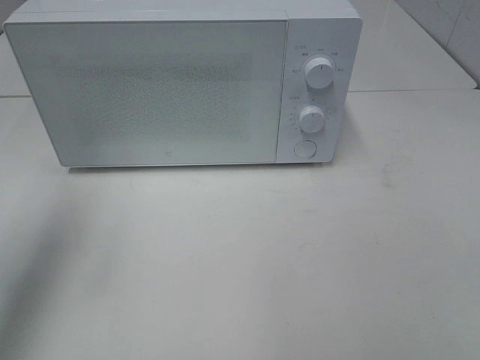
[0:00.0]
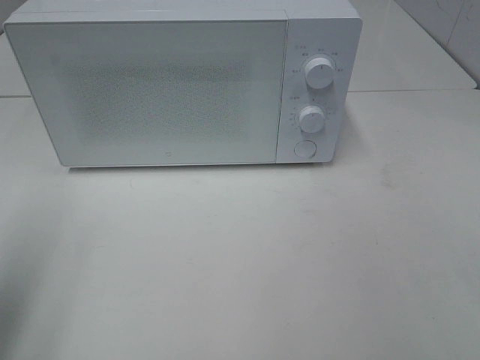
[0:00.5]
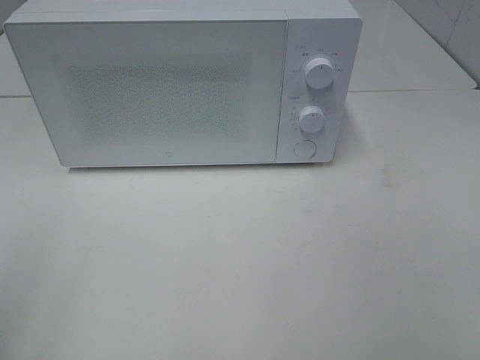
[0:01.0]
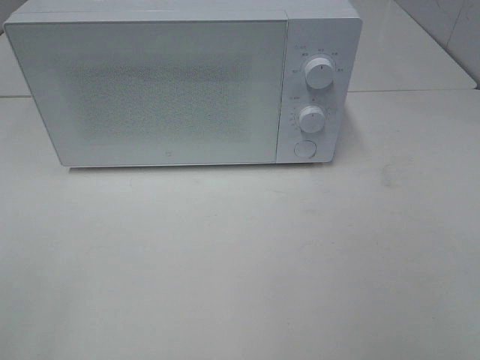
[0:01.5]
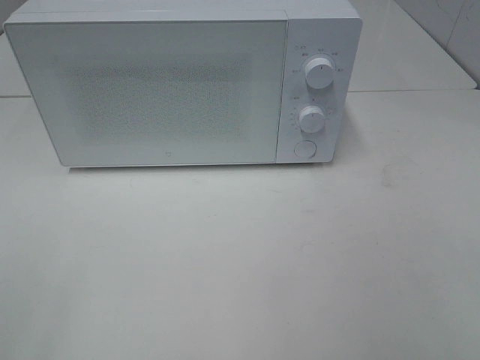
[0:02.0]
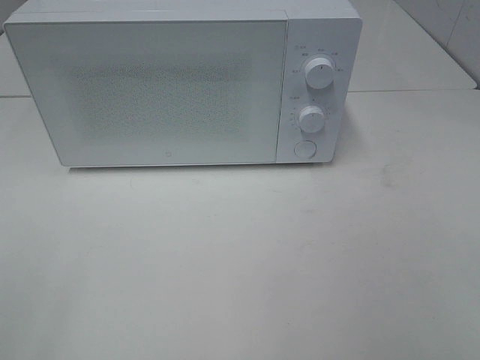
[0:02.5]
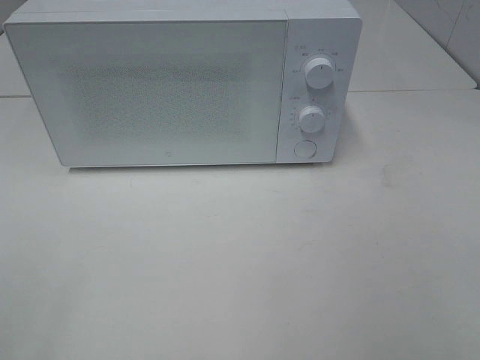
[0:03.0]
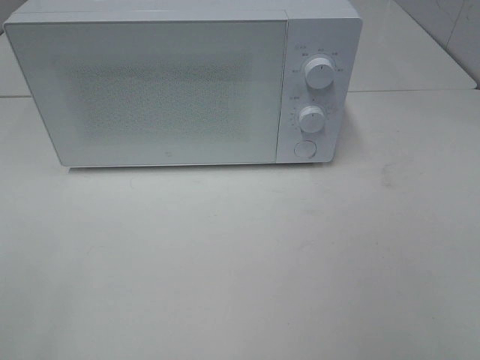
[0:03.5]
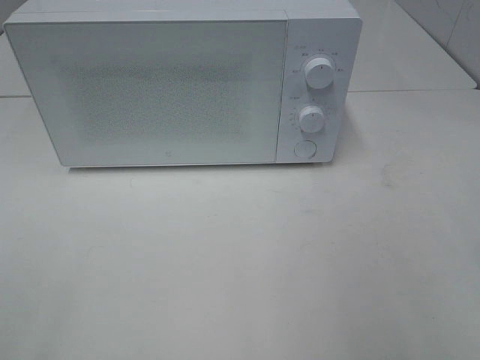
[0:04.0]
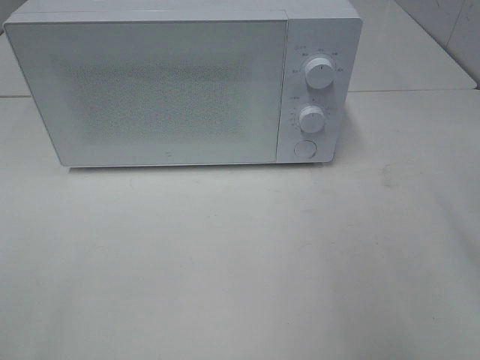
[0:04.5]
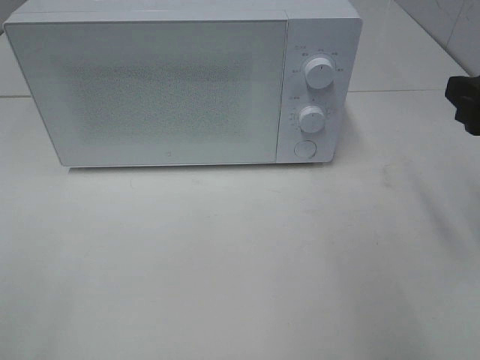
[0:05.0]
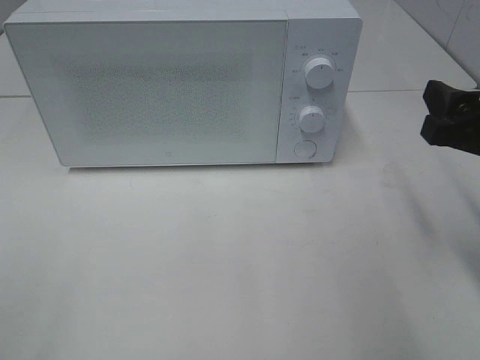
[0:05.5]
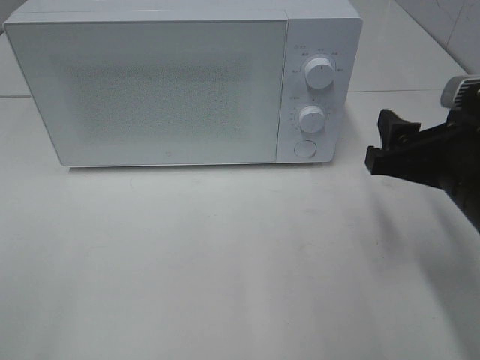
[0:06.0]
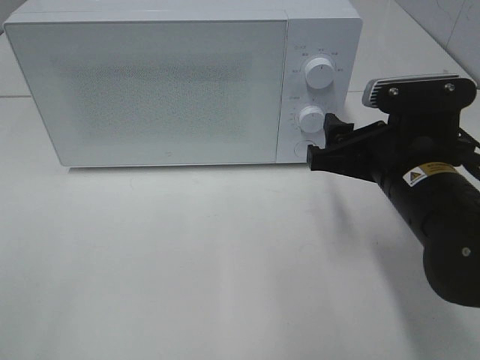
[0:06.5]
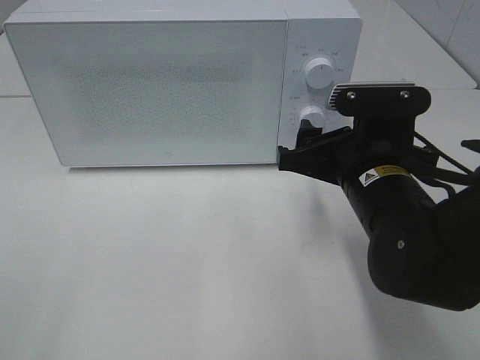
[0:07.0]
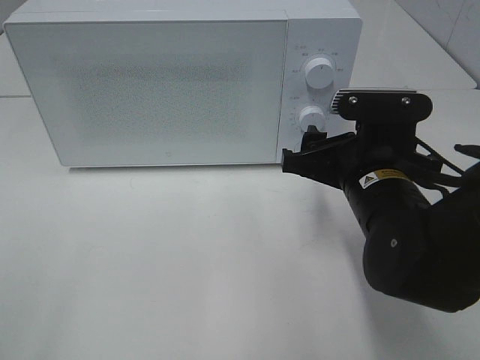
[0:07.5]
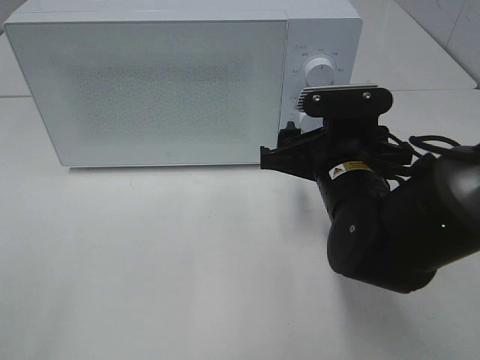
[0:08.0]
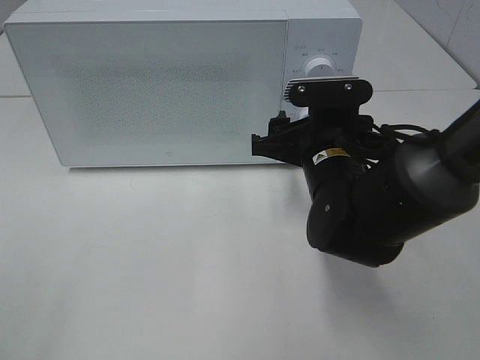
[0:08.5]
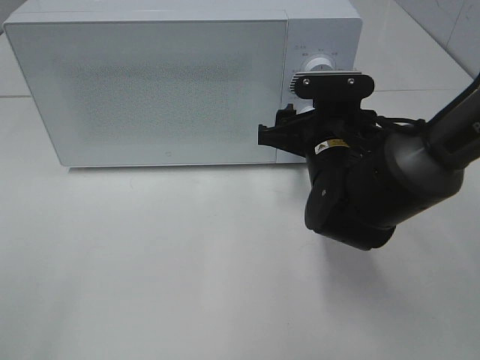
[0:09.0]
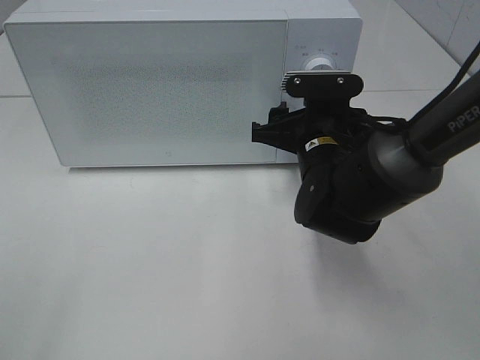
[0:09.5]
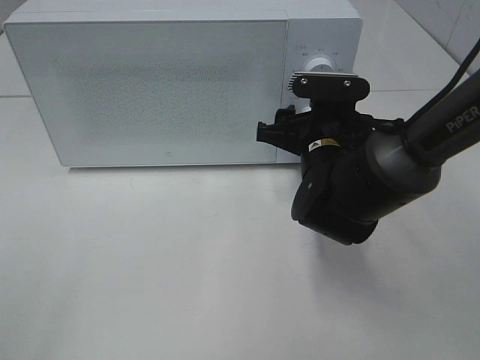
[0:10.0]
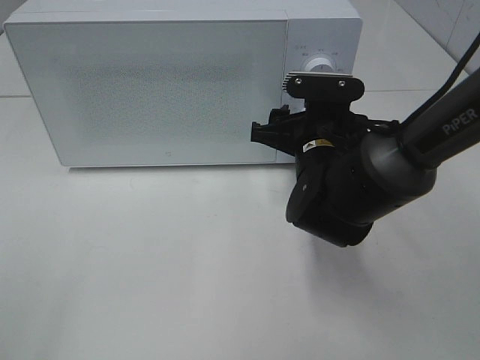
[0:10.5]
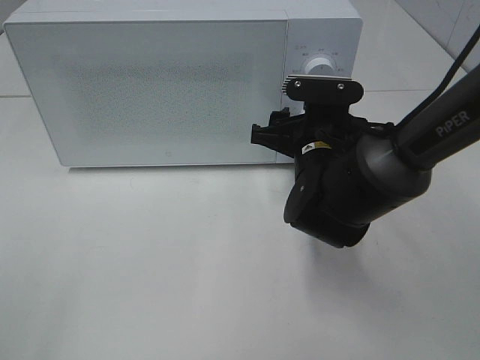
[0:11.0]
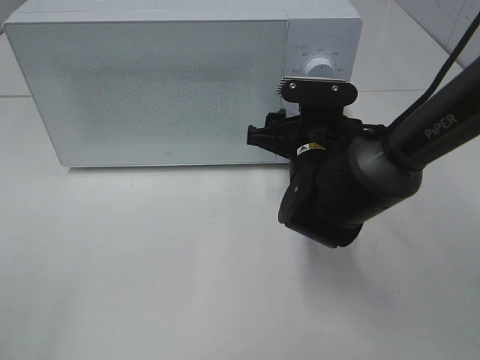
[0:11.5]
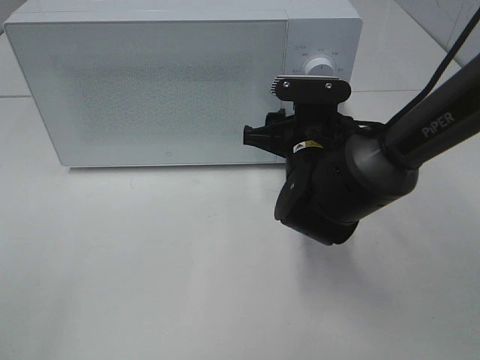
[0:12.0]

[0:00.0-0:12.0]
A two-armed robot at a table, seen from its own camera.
Task of the whole recording: Heat the burger.
0:00.0 to 0:02.0: The left gripper heads backward, covering approximately 25 cm.
0:04.0 to 0:06.0: The right gripper moves downward, forward and to the left, about 20 cm.
0:06.0 to 0:08.0: The right gripper moves to the left and forward, roughly 10 cm.
0:08.0 to 0:10.0: The right gripper shifts about 5 cm forward.
0:10.0 to 0:12.0: The grippers make only small movements.

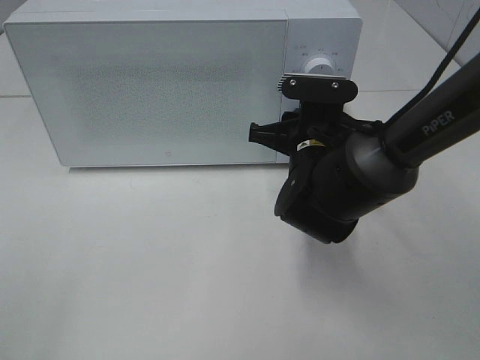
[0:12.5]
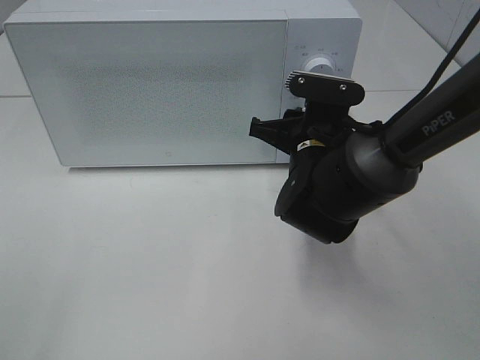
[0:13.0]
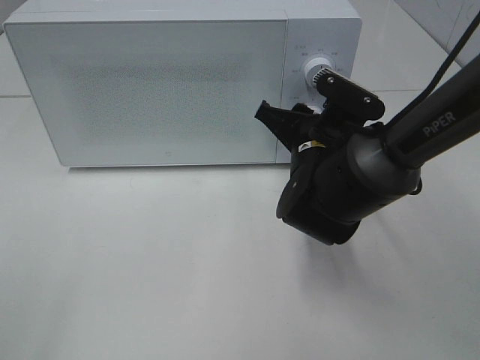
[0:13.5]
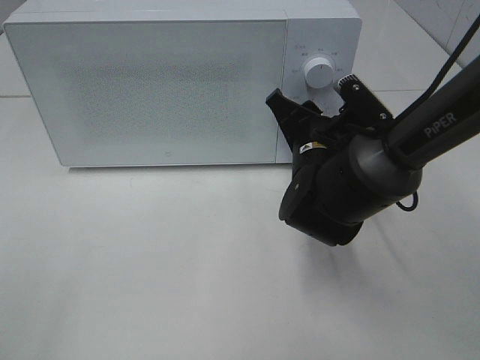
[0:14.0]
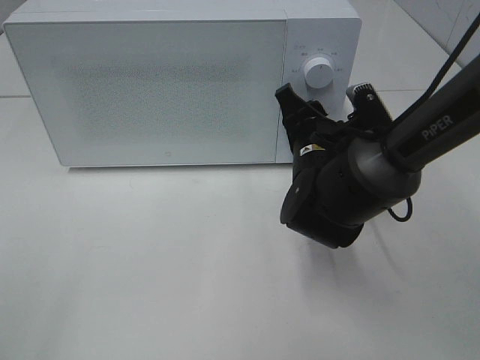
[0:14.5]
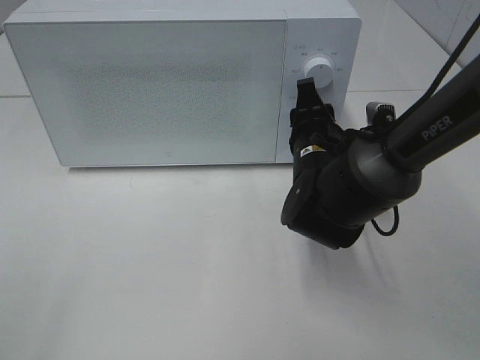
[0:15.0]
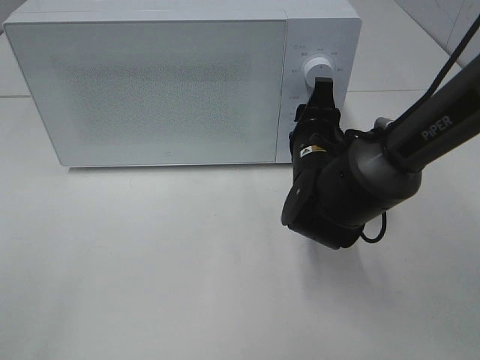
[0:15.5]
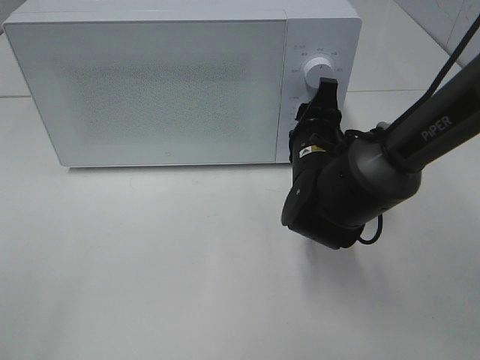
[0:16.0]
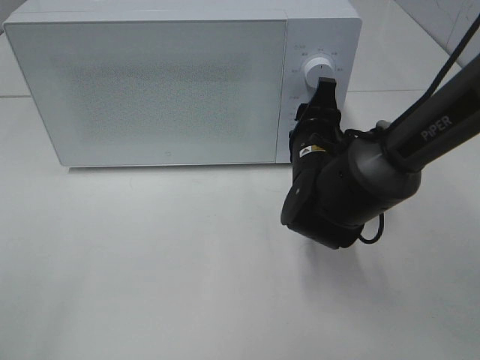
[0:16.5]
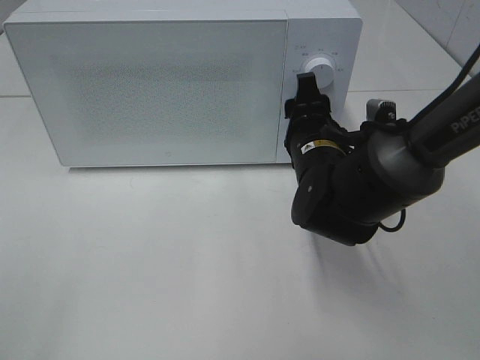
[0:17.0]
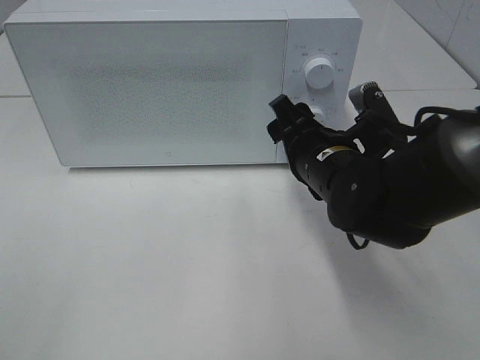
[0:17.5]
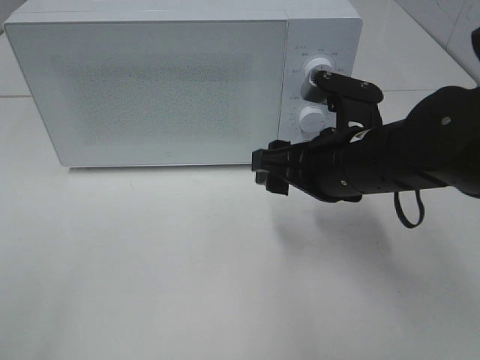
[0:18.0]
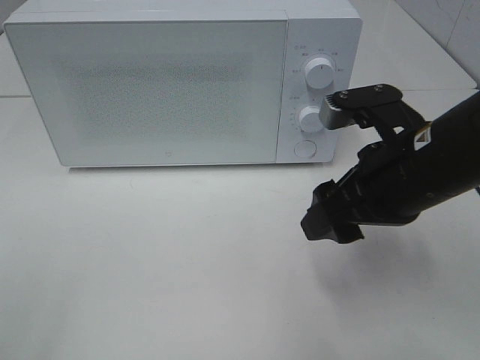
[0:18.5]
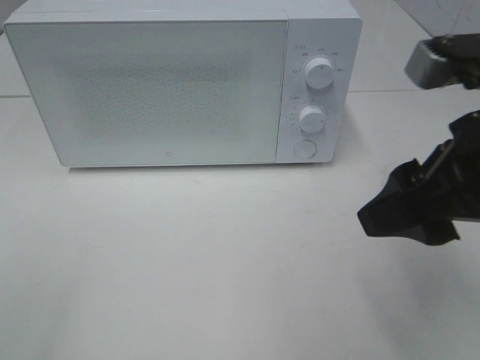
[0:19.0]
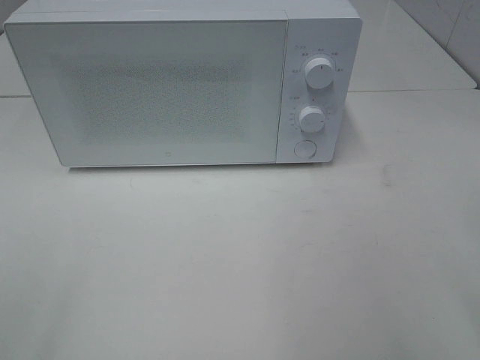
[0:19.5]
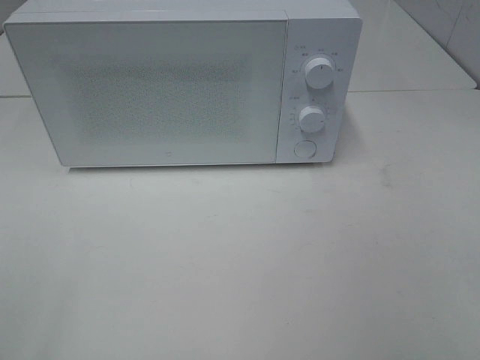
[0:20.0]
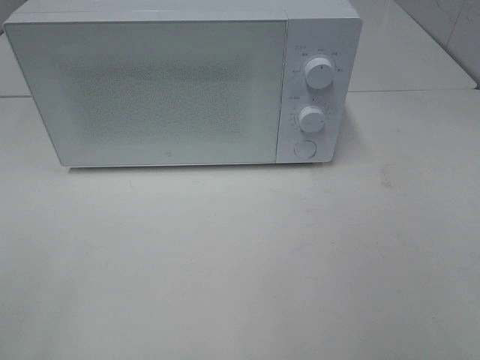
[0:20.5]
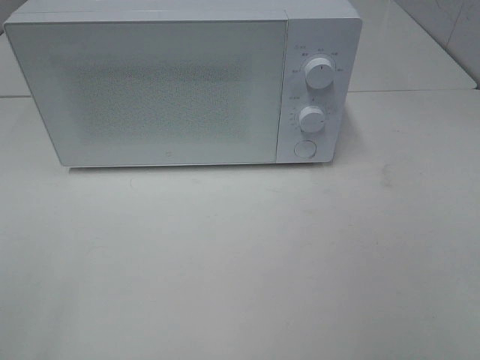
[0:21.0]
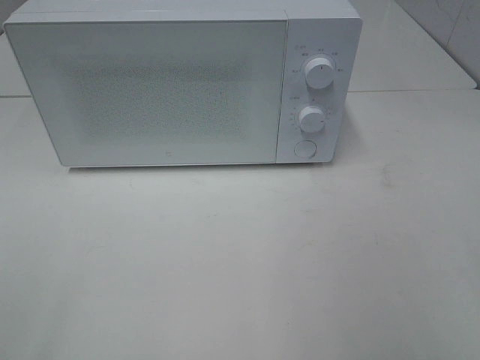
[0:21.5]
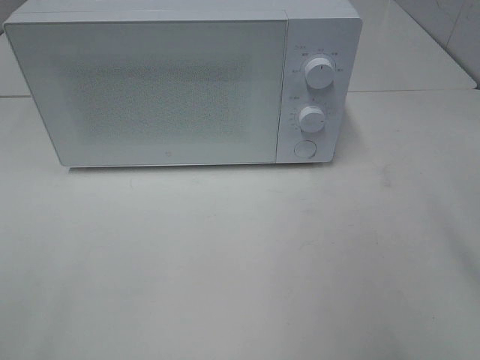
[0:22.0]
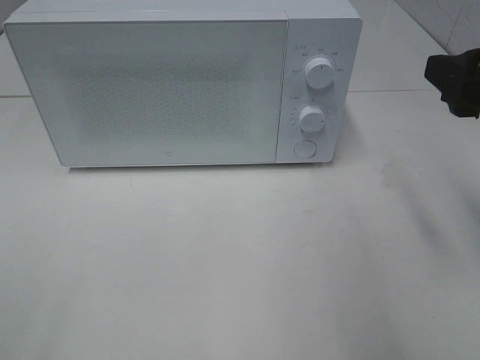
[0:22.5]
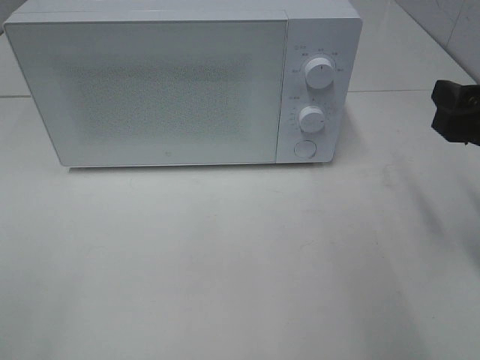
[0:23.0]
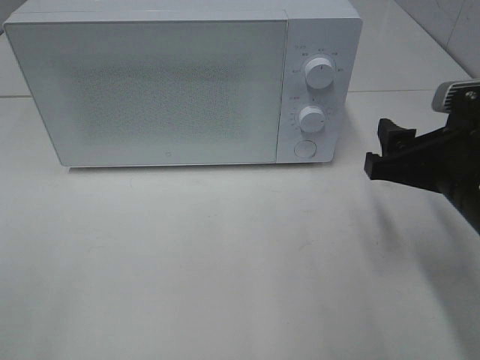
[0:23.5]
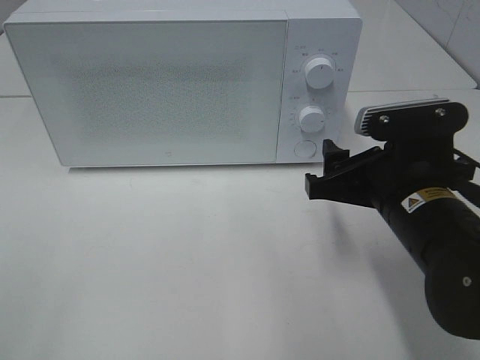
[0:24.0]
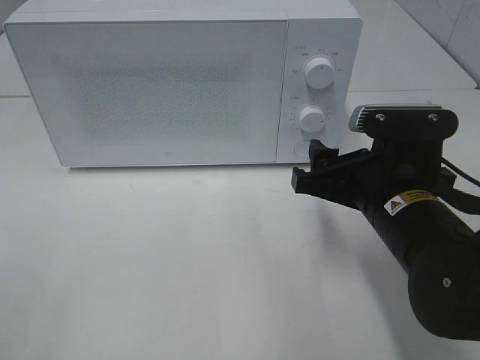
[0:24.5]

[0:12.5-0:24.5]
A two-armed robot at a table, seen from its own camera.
Task of the whole recording: Heat the burger.
Step, 0:12.5 to 0:17.0: Right hand: twist timer button.
0:16.5 to 0:18.5: The right gripper goes roughly 15 cm backward, upward and to the right.
0:18.5 to 0:20.5: The right gripper travels backward and to the right by some 25 cm.
0:20.5 to 0:22.5: The right gripper travels forward by some 20 cm.
0:22.5 to 0:24.5: The right gripper moves downward and to the left, about 15 cm.

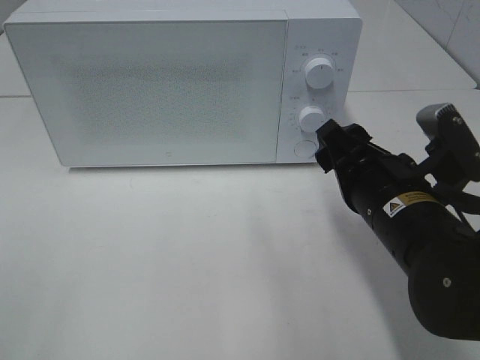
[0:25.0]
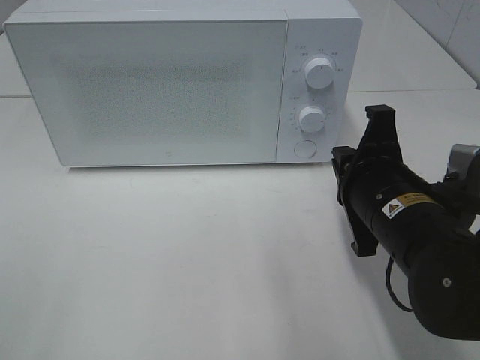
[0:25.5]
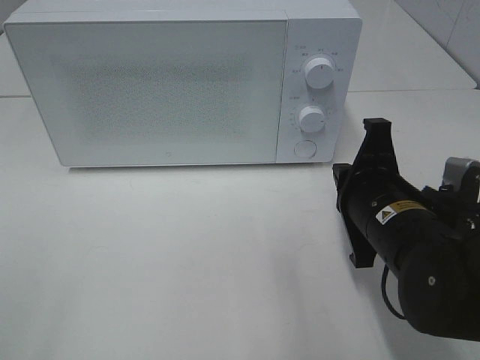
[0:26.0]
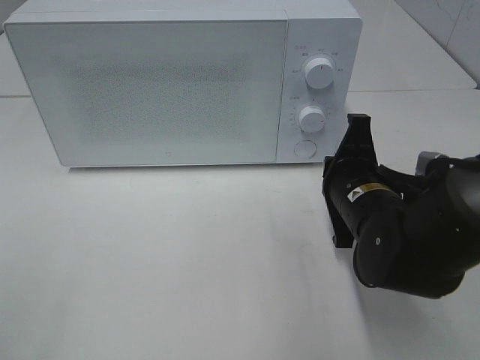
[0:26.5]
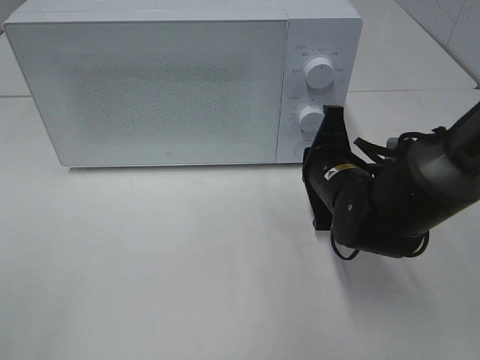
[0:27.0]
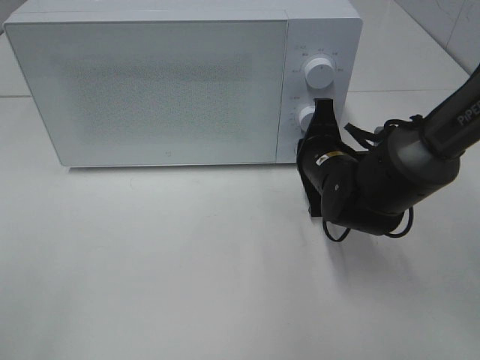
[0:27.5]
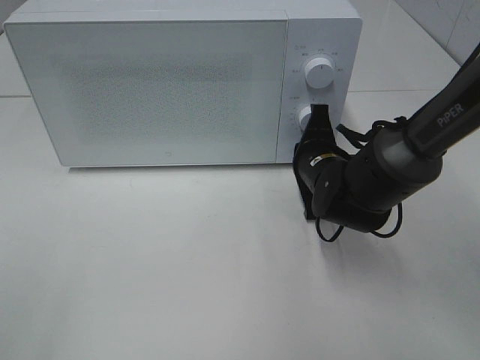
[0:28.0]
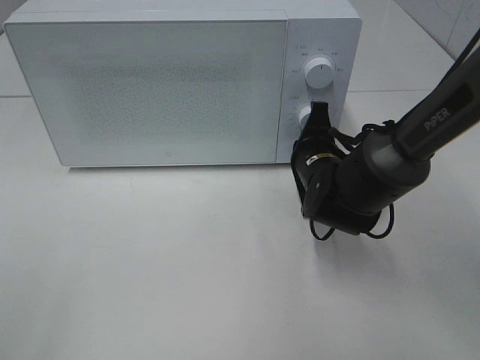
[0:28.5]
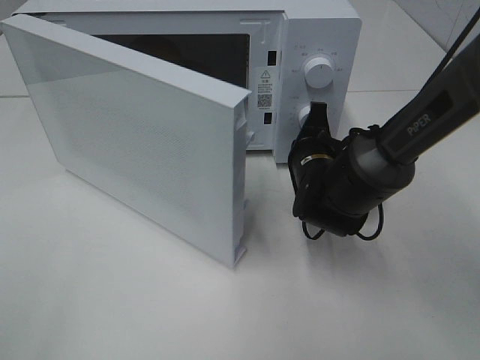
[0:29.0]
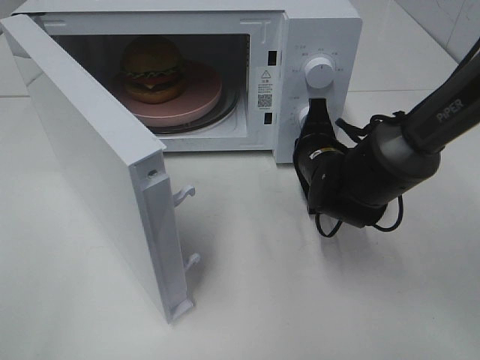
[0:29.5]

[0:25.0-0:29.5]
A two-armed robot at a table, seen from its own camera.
Task of the whole recording: Heat the burger.
0:25.0 to 0:27.0: The right gripper is displaced forward by approximately 10 cm, and closes up.
